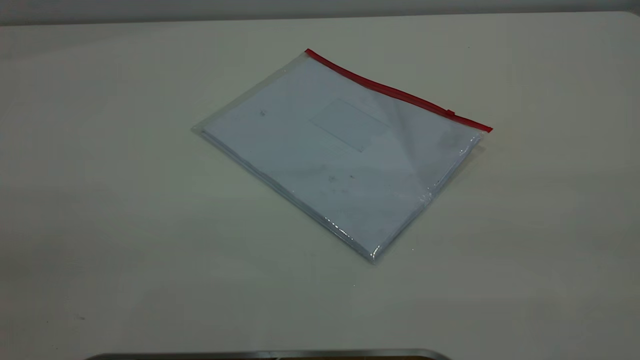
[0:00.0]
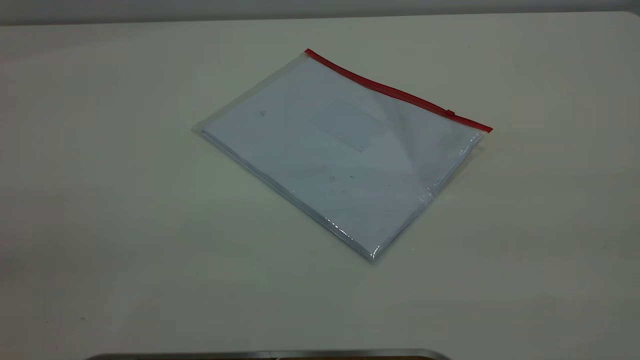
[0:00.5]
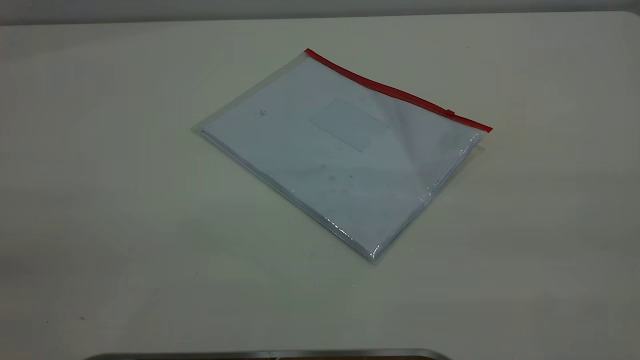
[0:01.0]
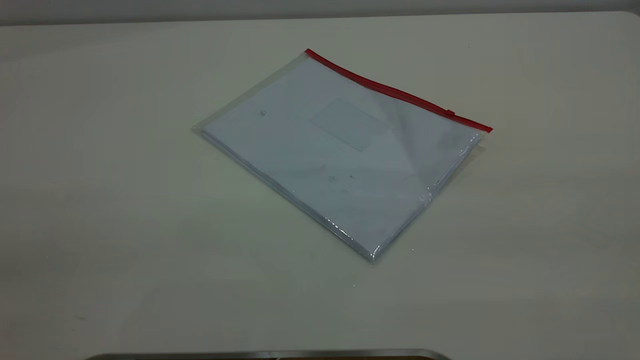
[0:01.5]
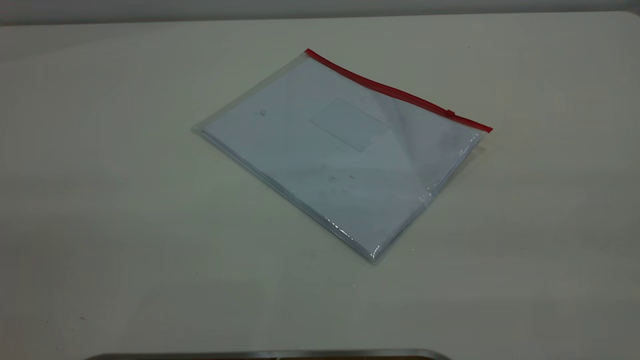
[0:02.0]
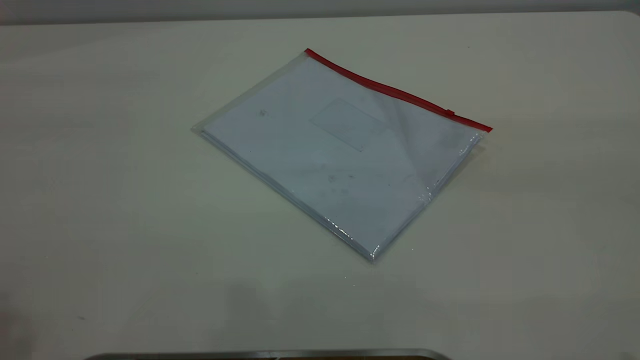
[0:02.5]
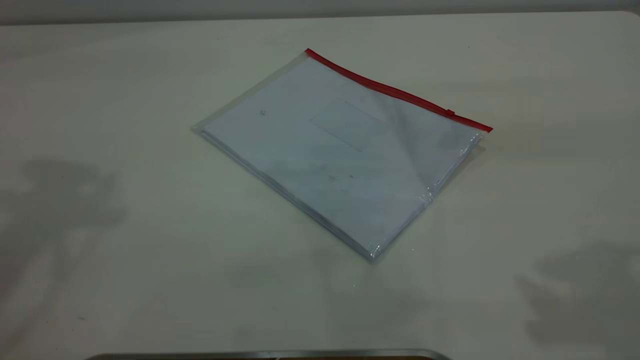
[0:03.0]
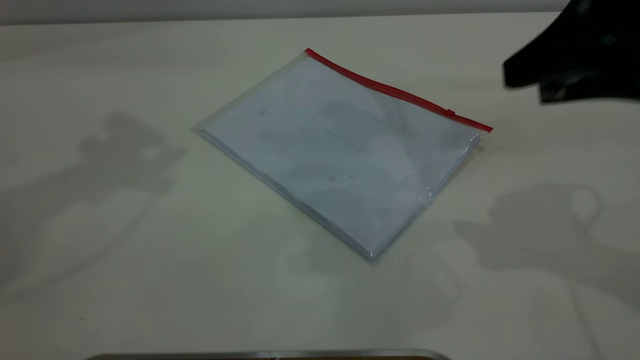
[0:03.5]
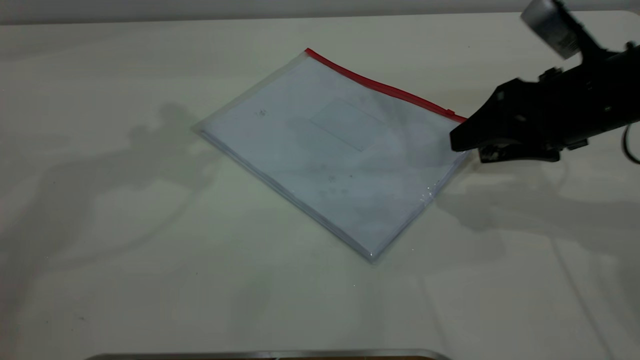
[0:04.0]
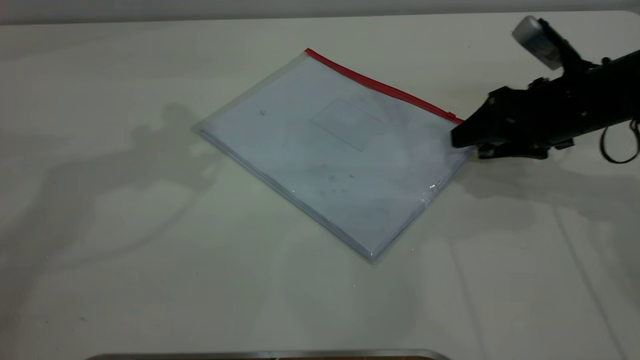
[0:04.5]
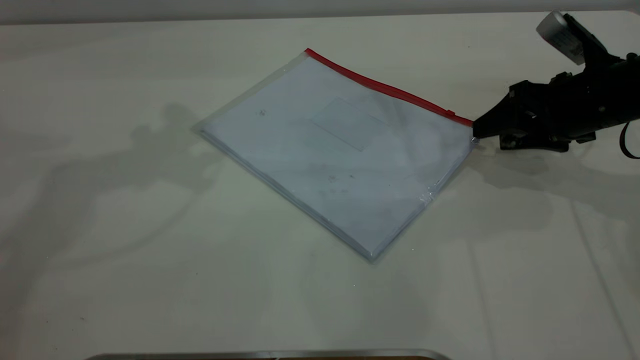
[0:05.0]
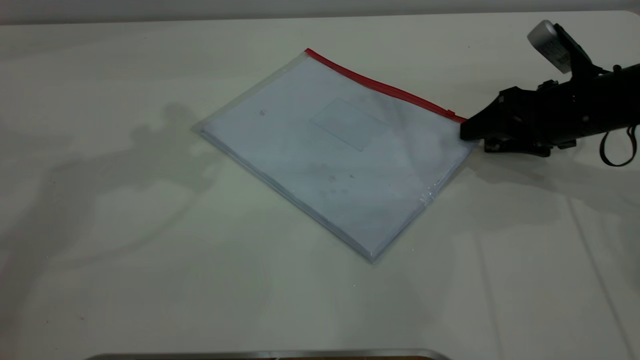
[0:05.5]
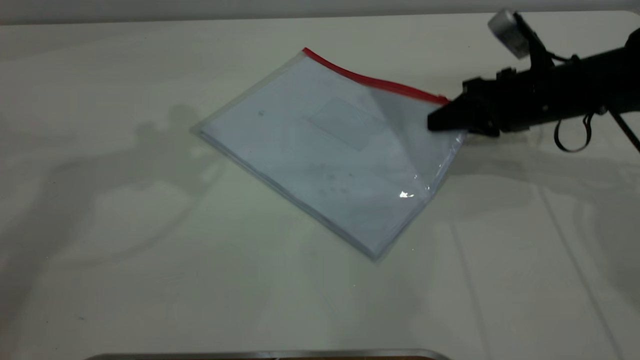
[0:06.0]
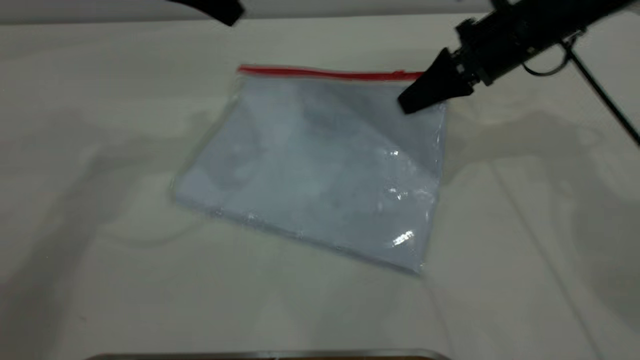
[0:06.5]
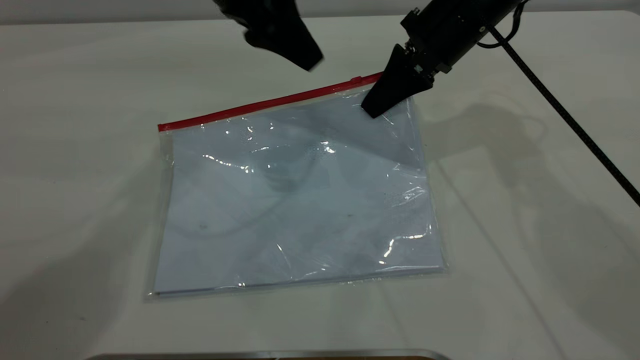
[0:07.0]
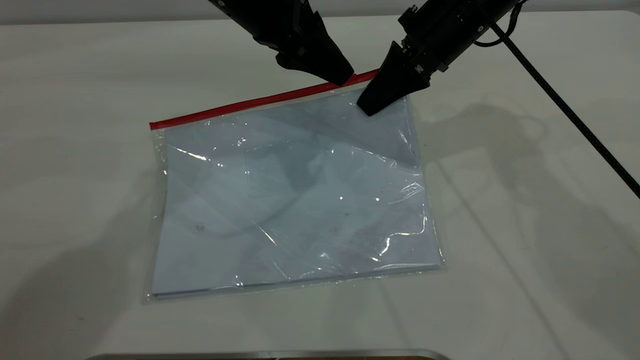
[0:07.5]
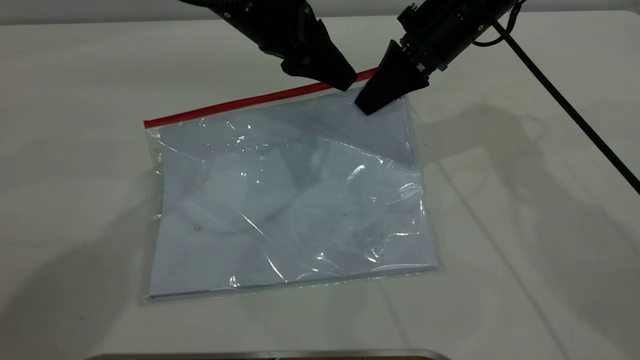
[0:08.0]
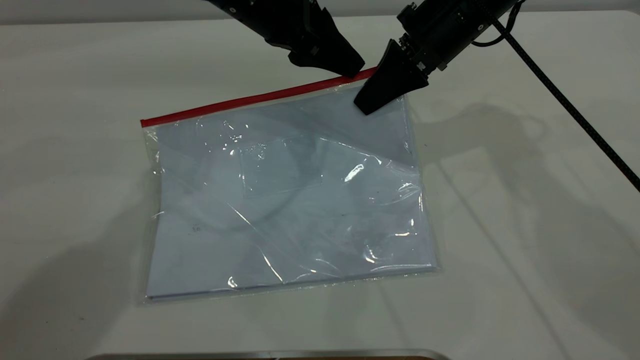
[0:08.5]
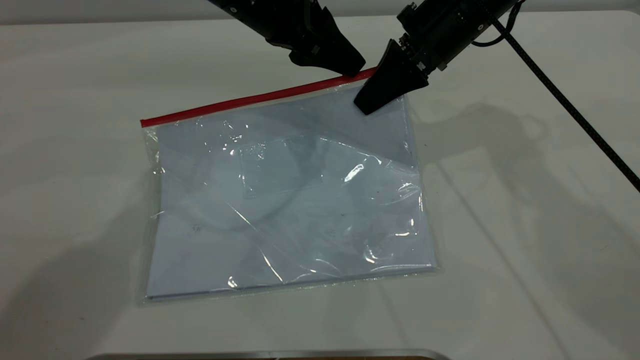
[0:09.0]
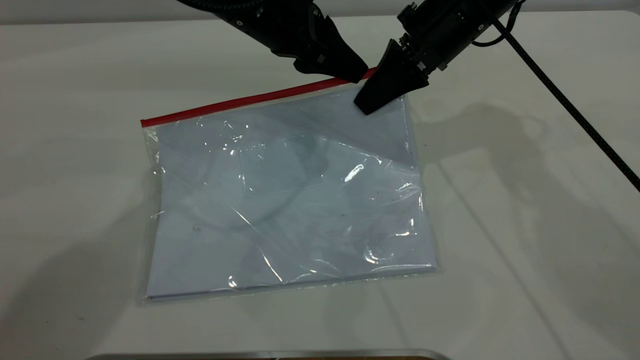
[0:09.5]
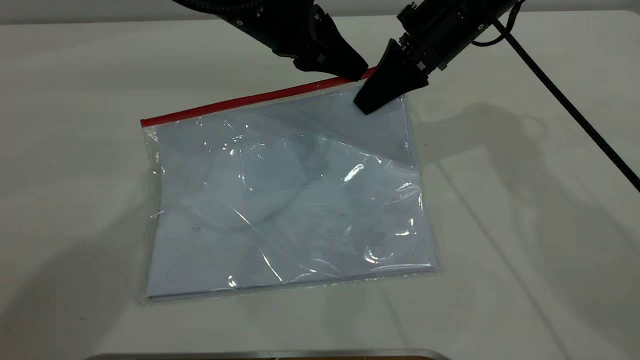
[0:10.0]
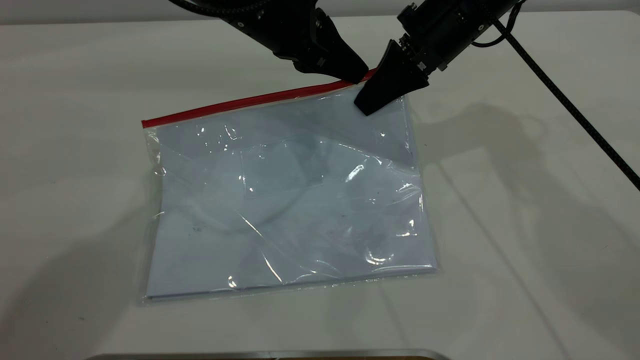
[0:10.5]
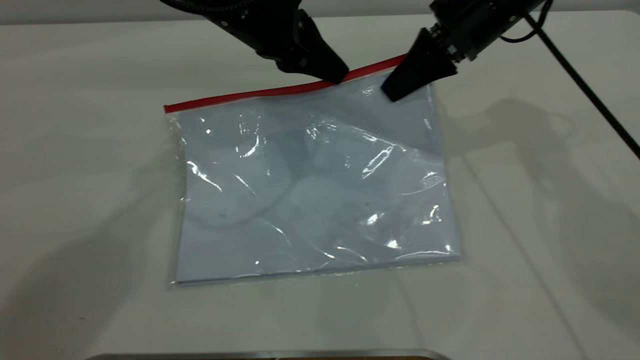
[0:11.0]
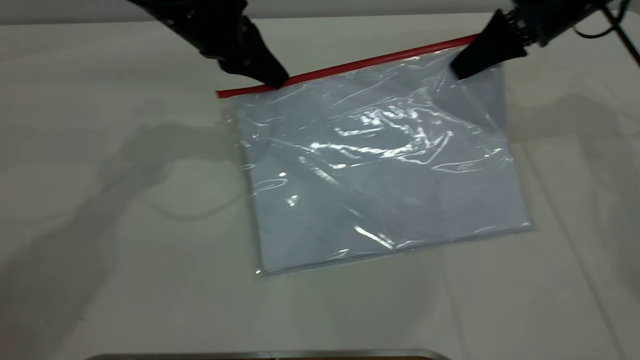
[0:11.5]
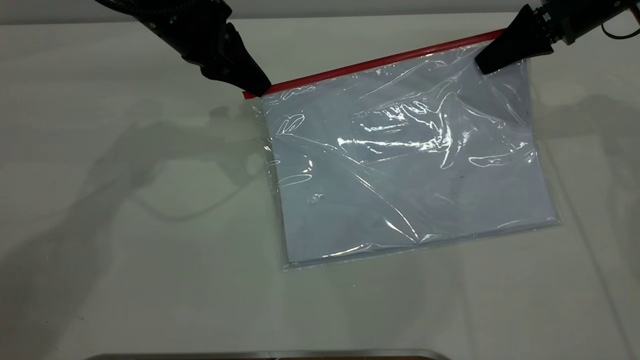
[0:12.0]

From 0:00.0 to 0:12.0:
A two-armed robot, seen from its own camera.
Step, from 0:00.0 to 0:06.0: Pick up the transparent plastic bag with the right gripper.
From 0:02.0 to 0:04.0: The right gripper shifts approximately 40 cm forward and downward.
From 0:04.0 to 0:06.0: The right gripper shifts approximately 10 cm forward and downward, and closes up.
From 0:06.0 to 0:08.0: The right gripper heads to the left and upward, covering about 15 cm, while the left gripper is displaced downward and to the right by some 20 cm.
From 0:08.0 to 0:10.0: The left gripper closes up.
From 0:10.0 to 0:12.0: The left gripper heads to the left, covering about 10 cm. Meanwhile the right gripper travels to the right by about 15 cm.

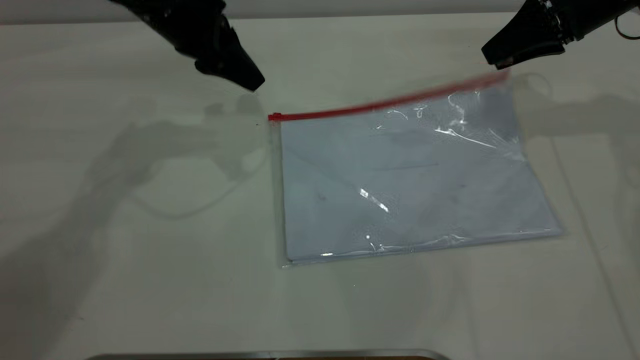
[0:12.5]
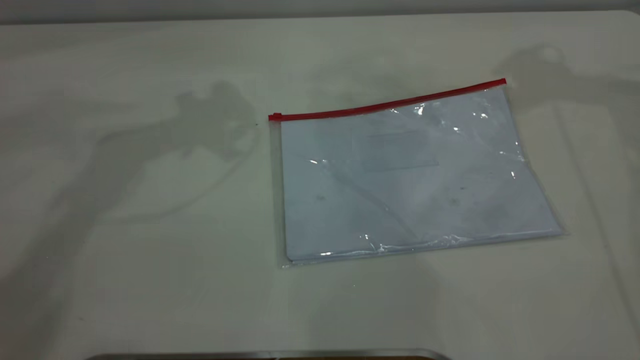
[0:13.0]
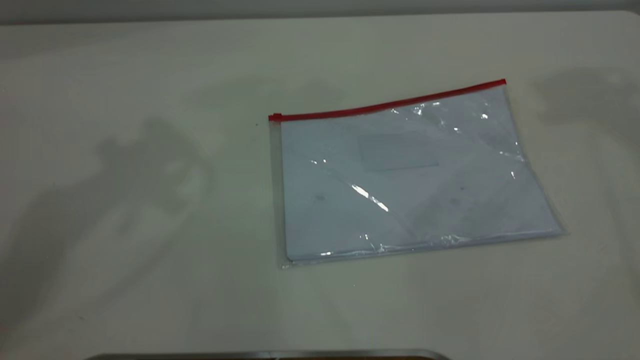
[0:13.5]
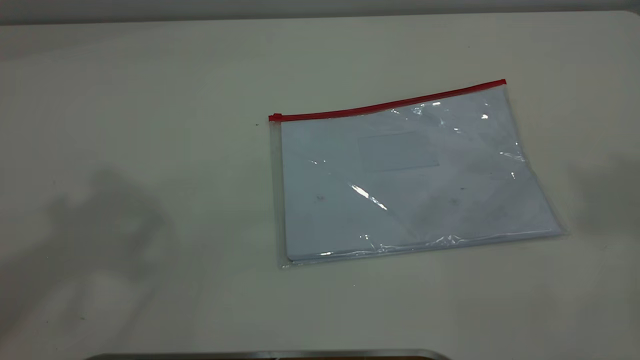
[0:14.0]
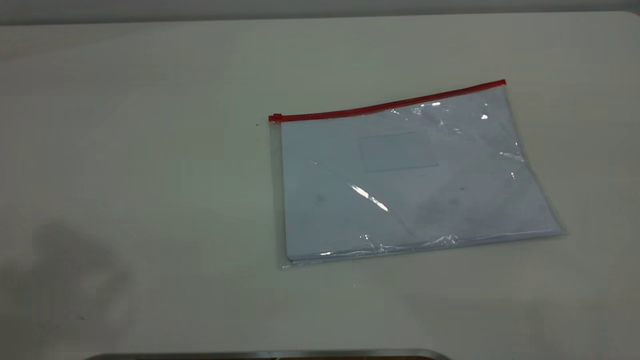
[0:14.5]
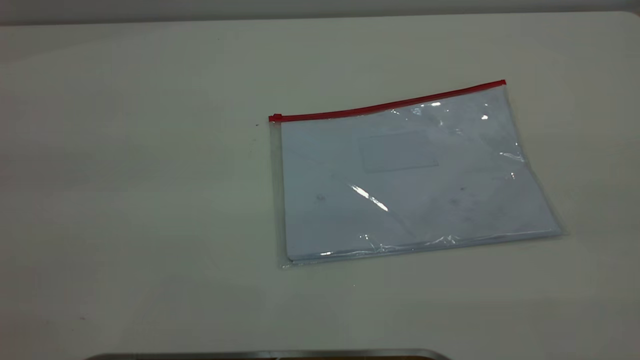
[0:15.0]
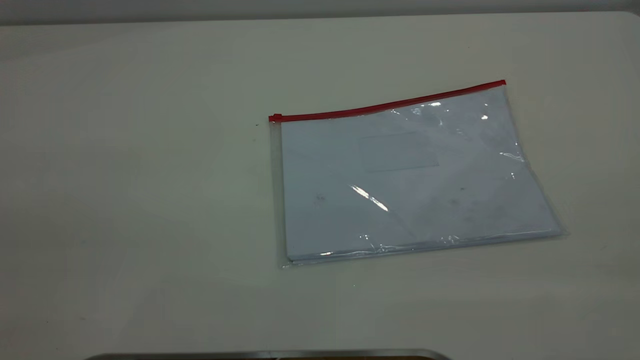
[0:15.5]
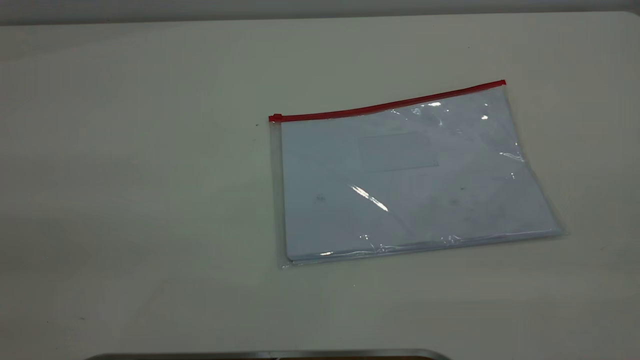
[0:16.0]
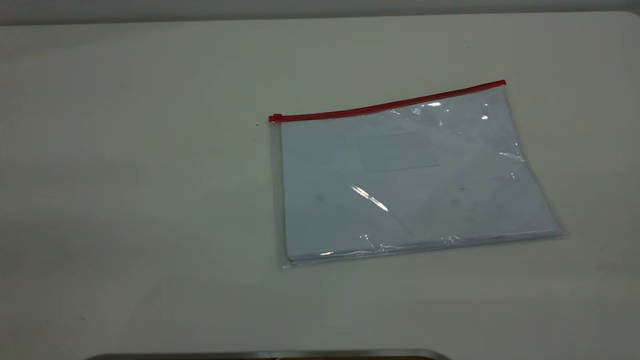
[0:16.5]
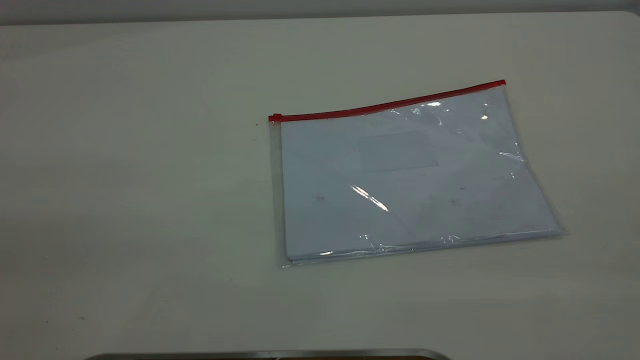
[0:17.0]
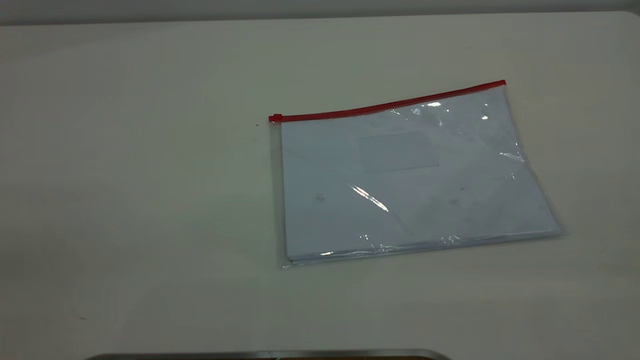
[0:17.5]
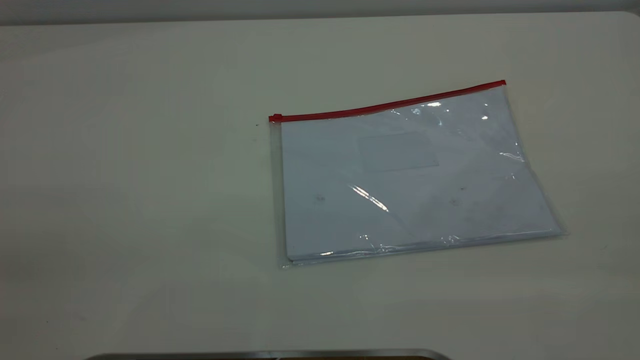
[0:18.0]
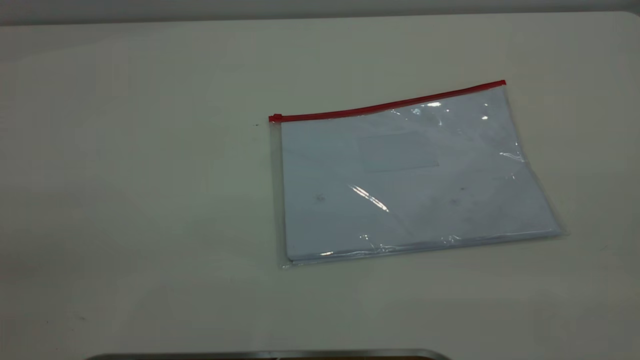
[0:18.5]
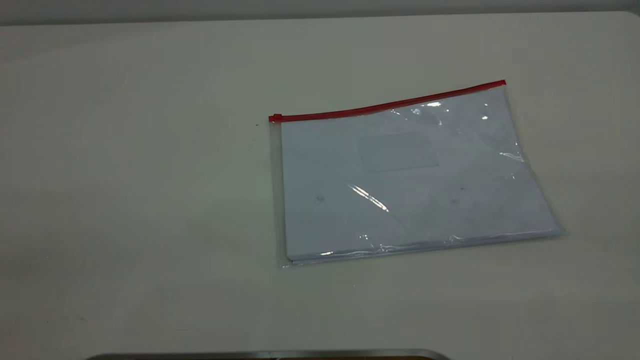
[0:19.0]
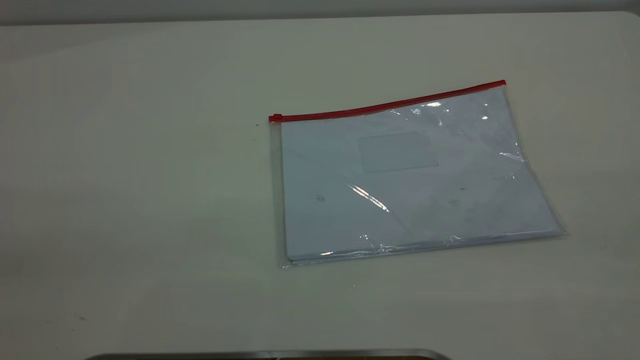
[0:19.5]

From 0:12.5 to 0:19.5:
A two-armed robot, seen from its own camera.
Step, from 0:12.5 to 0:13.0: Place the transparent plastic bag.
From 0:12.5 to 0:14.5: The right gripper heads backward and upward, covering roughly 60 cm, while the left gripper heads upward and backward, covering approximately 40 cm, and opens its fingers.
